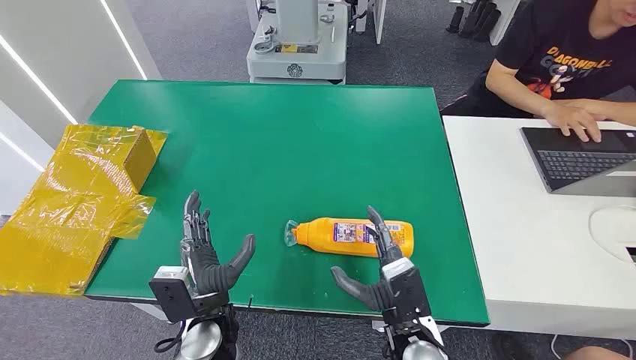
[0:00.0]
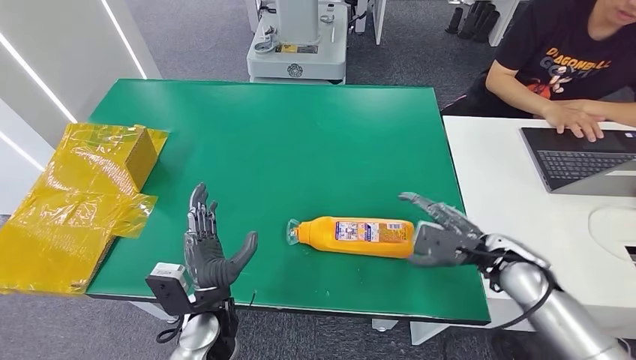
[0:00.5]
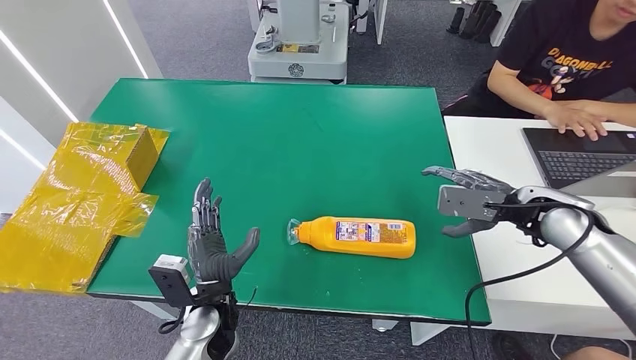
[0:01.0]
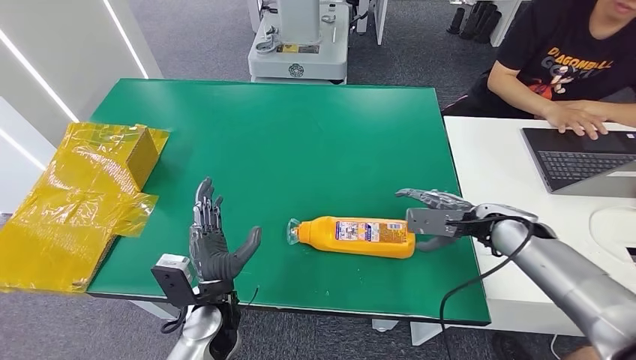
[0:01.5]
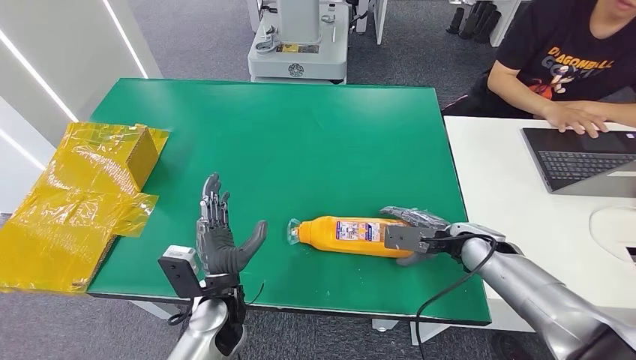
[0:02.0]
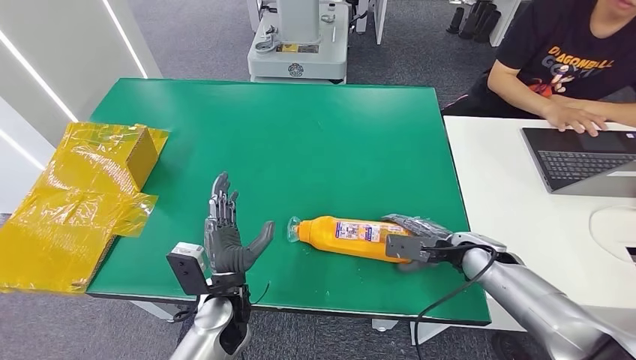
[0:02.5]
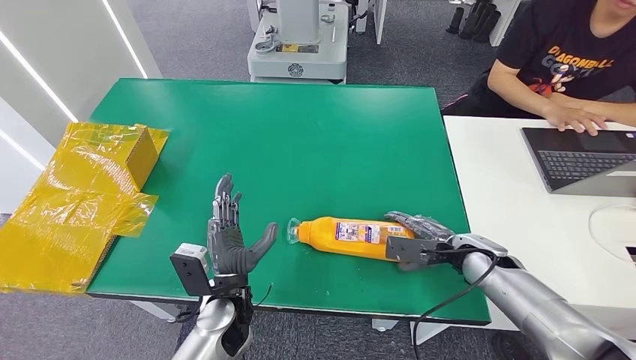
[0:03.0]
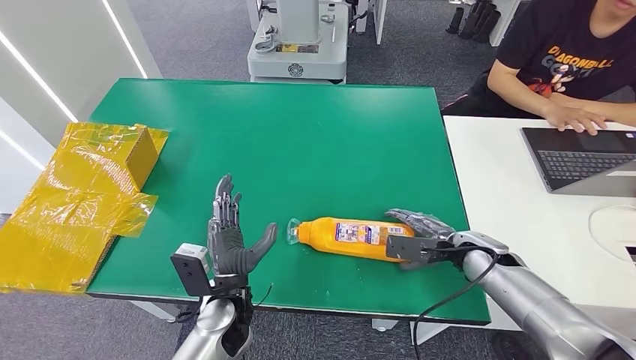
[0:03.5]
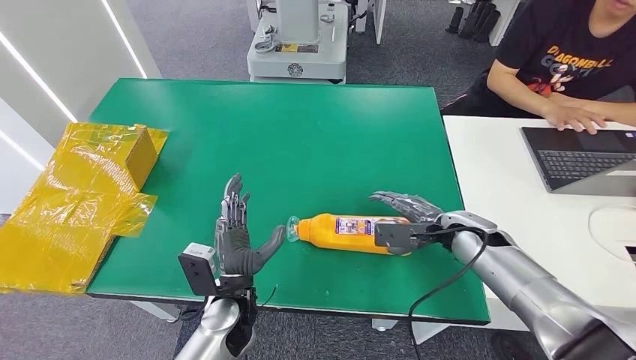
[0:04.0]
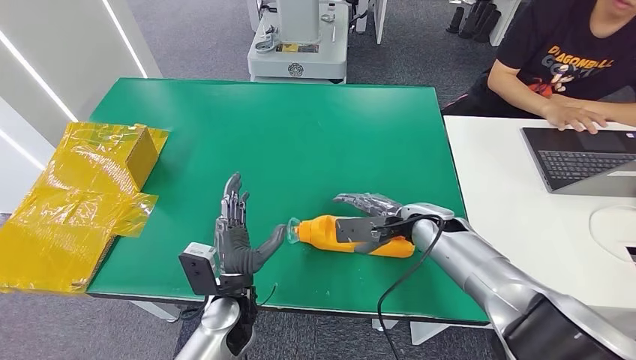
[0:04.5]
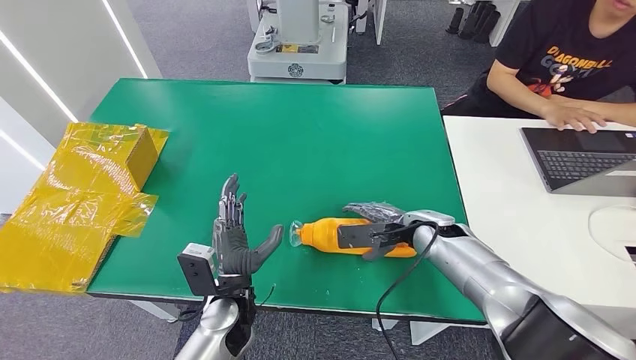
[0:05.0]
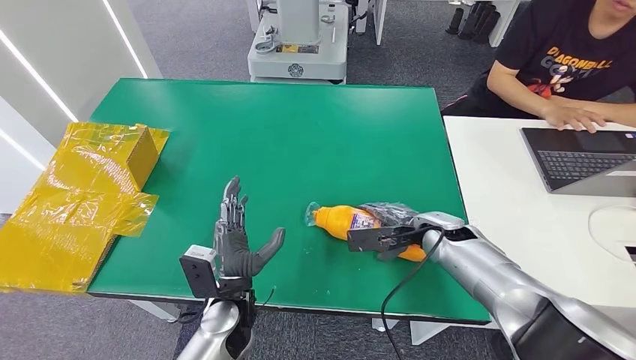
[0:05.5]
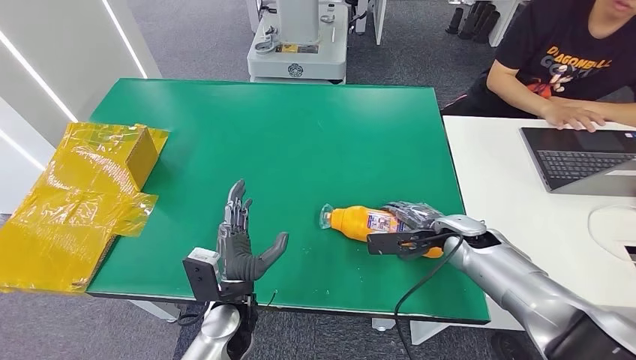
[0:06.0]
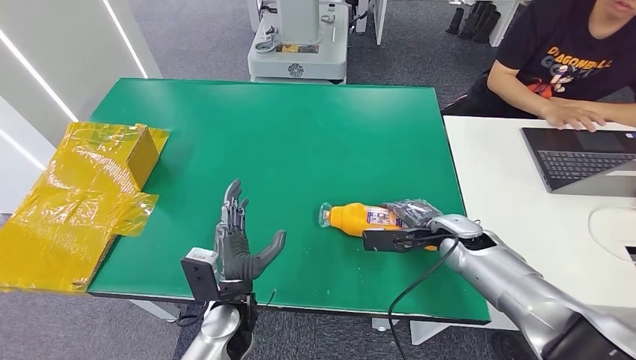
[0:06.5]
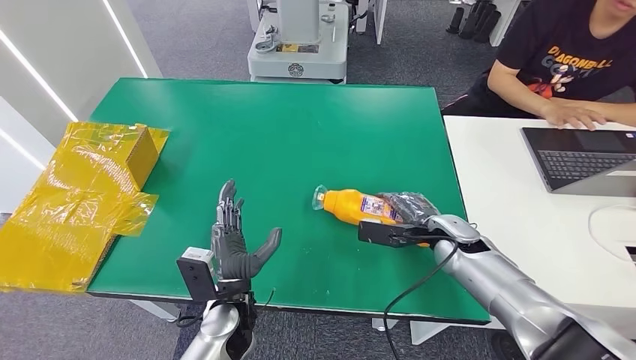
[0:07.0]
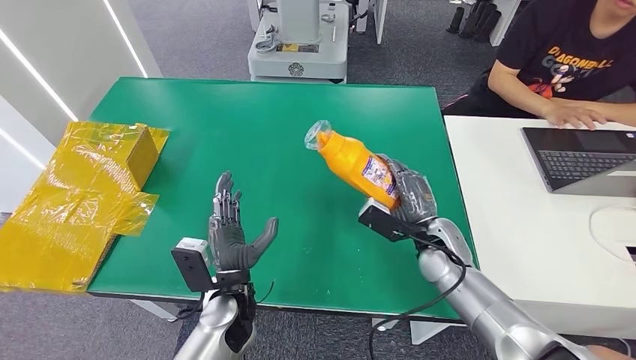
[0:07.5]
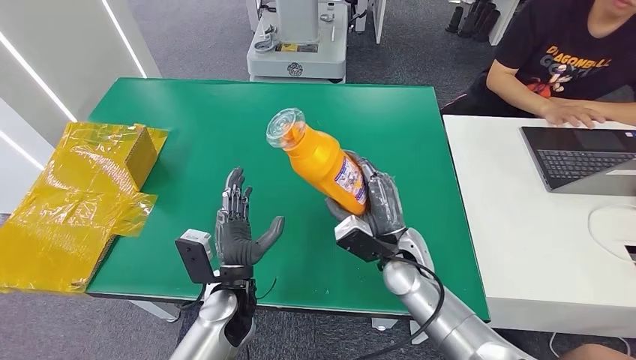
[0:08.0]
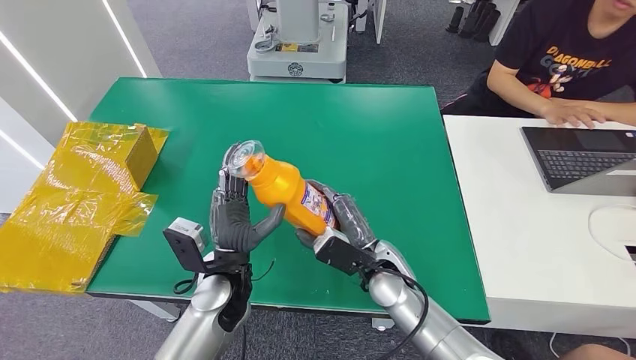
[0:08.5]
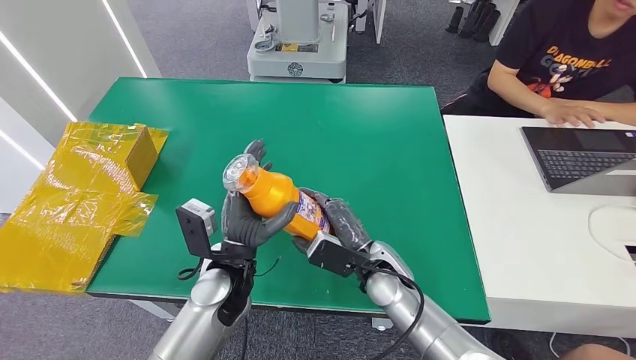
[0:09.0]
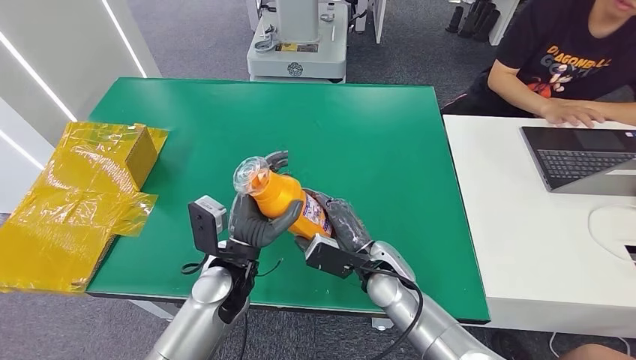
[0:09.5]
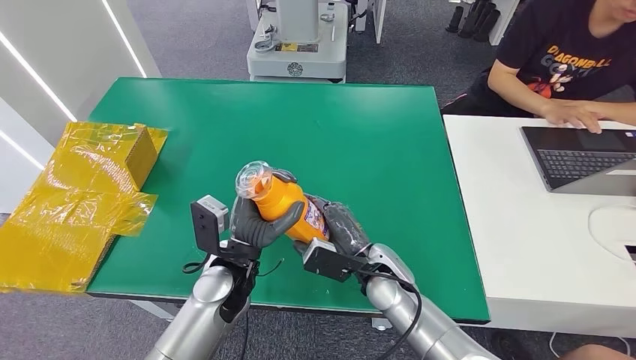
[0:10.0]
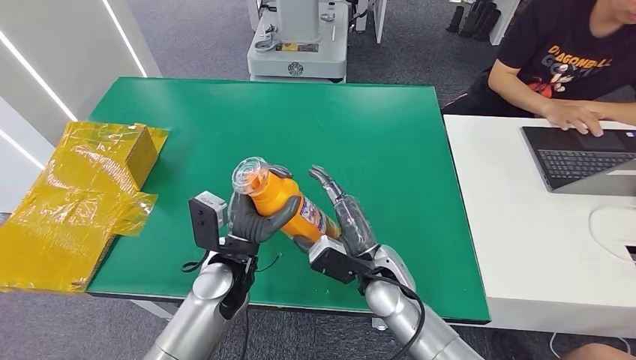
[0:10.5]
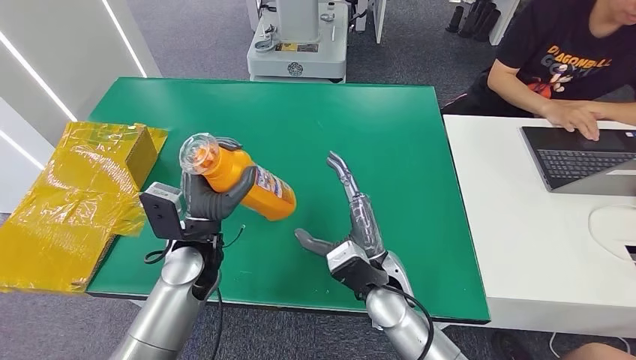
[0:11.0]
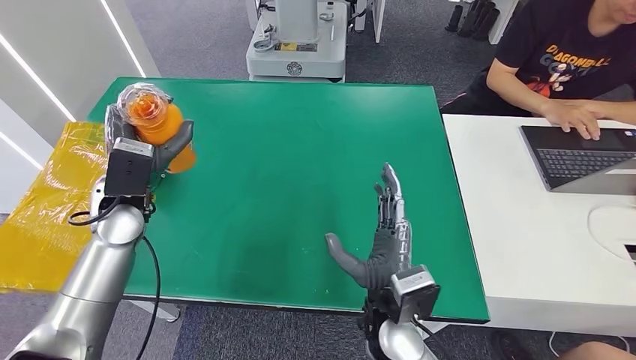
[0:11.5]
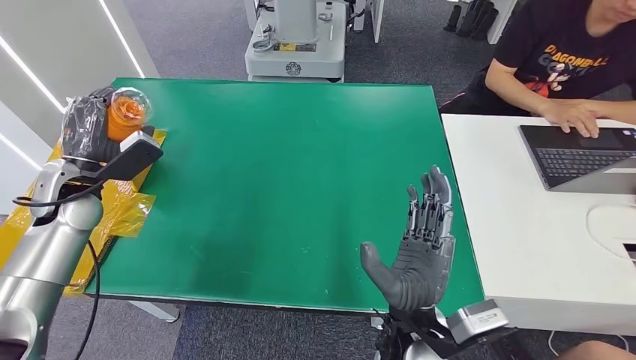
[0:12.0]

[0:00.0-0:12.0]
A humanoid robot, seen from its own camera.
Step, 0:00.0 to 0:08.0: Pick up the bottle from the table.
0:02.0 to 0:04.0: There are only small adjustments of the hands.
0:06.0 to 0:08.0: The right hand is displaced to the left by roughly 15 cm.
0:08.0 to 0:10.0: The left hand changes place by about 5 cm.

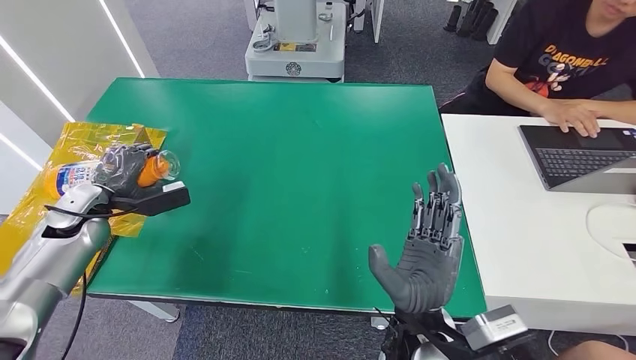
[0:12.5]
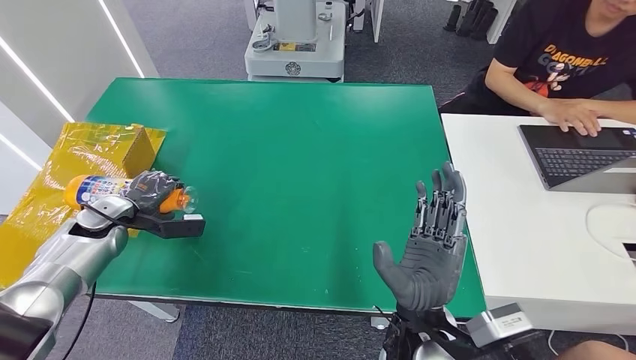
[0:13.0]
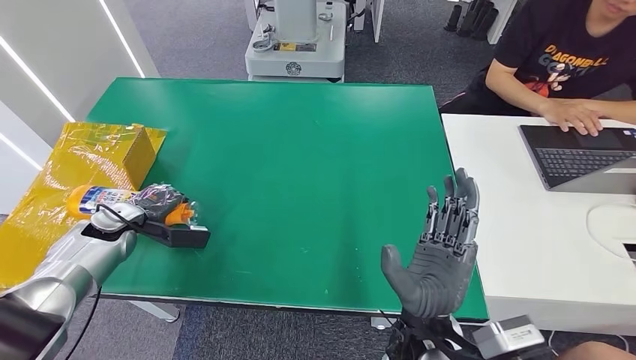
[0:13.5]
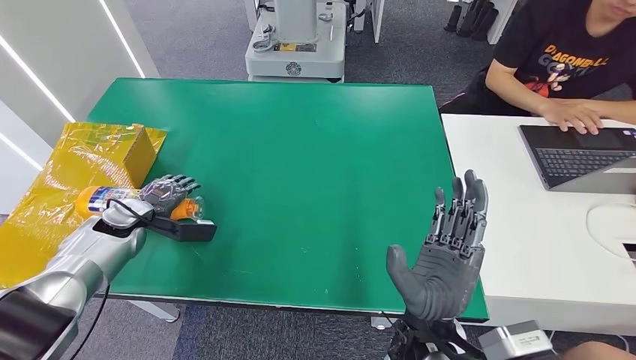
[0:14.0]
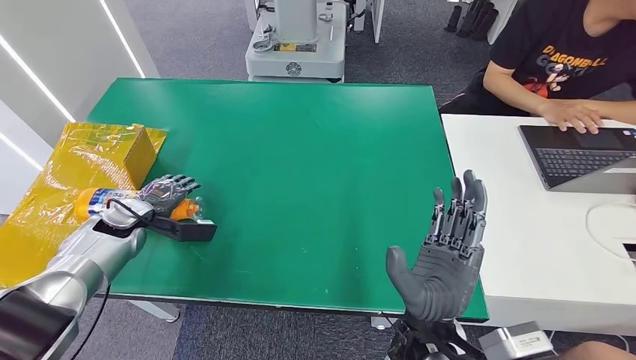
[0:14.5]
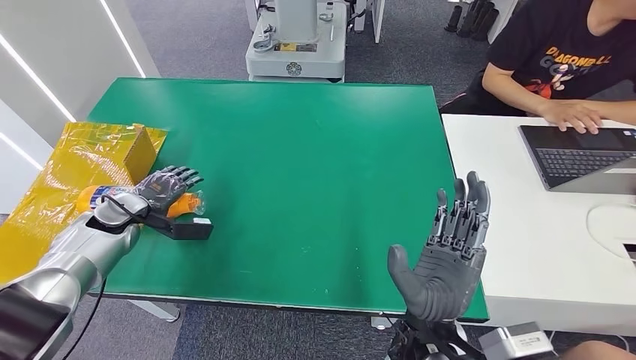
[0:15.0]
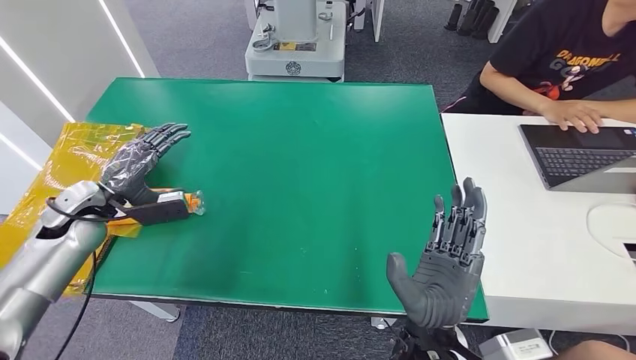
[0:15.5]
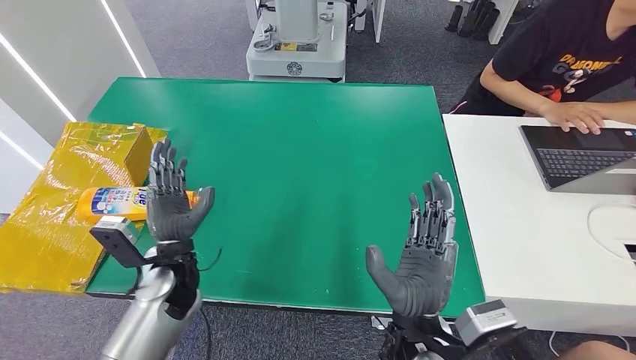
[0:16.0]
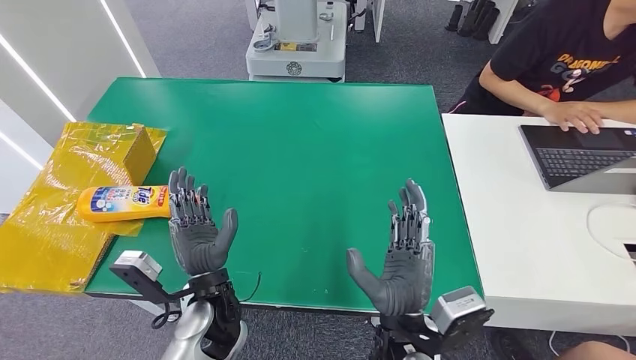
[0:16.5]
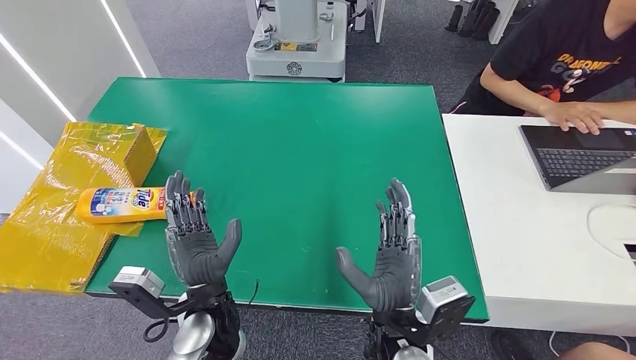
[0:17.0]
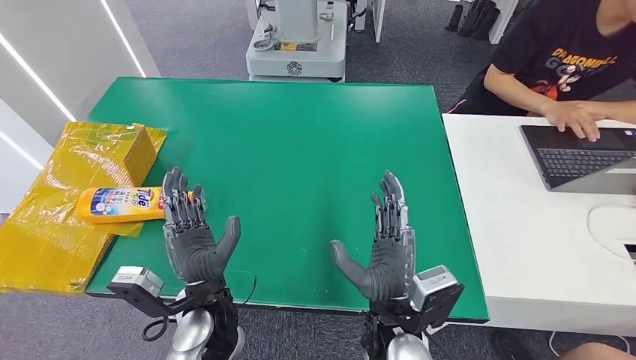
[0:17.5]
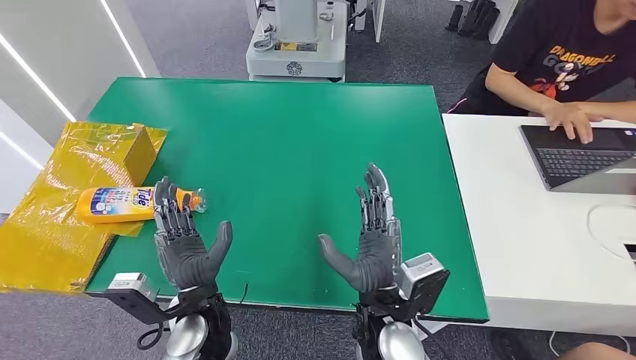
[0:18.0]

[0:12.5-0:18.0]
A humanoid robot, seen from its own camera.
Step, 0:12.5 to 0:17.5: Turn the bottle to the front side.
0:12.5 to 0:14.5: The left hand heads downward, covering some 5 cm.
0:14.5 to 0:16.0: The left hand travels to the right and backward by approximately 20 cm.
0:16.0 to 0:18.0: The left hand travels to the right and backward by about 10 cm.
